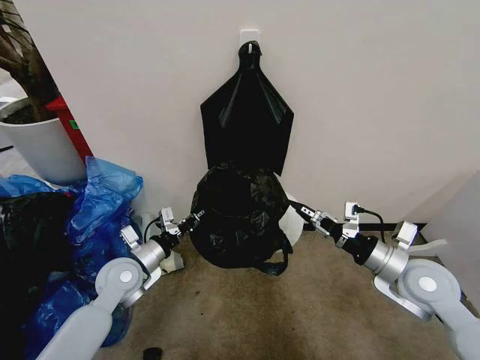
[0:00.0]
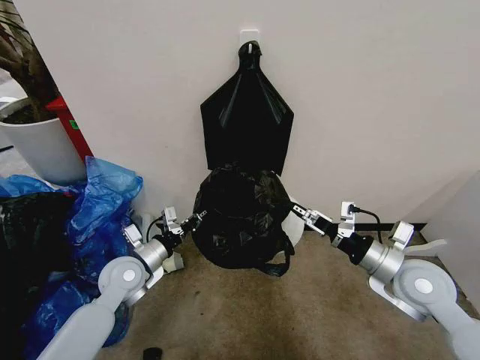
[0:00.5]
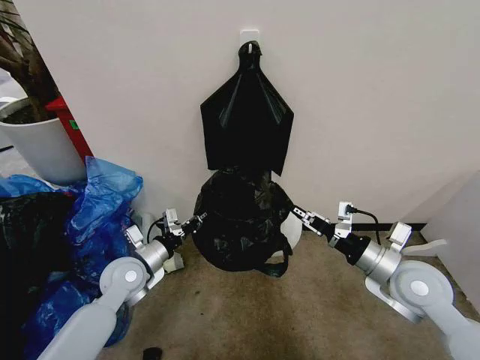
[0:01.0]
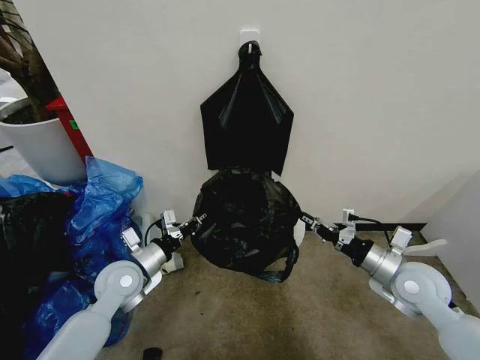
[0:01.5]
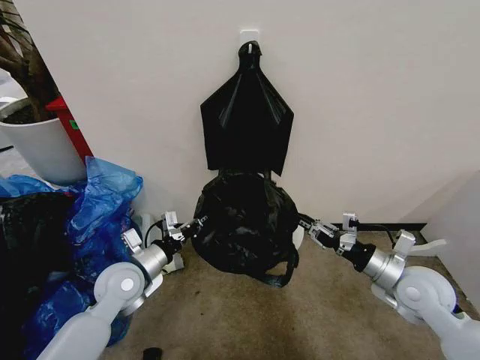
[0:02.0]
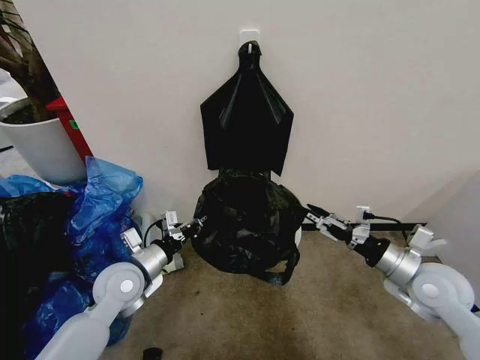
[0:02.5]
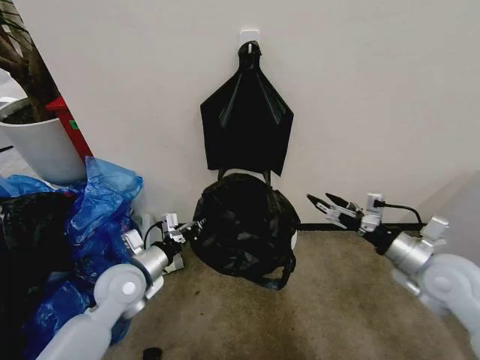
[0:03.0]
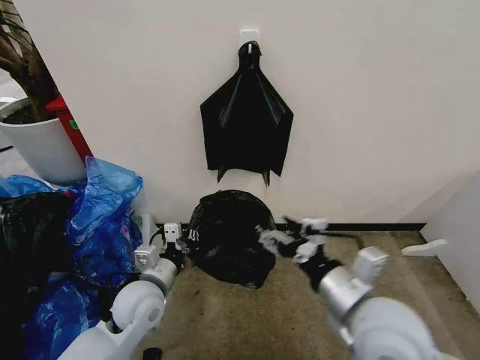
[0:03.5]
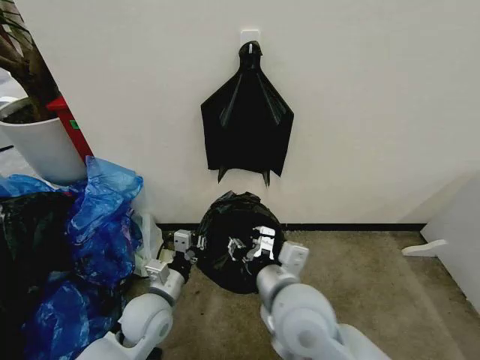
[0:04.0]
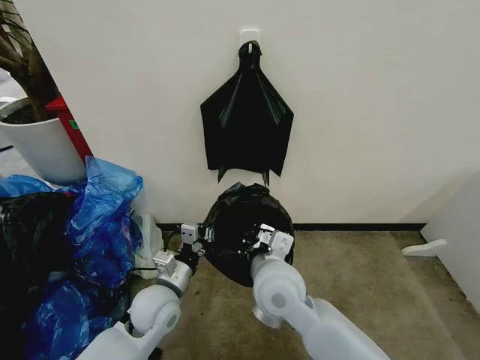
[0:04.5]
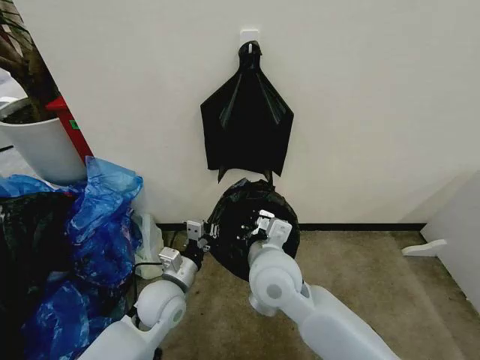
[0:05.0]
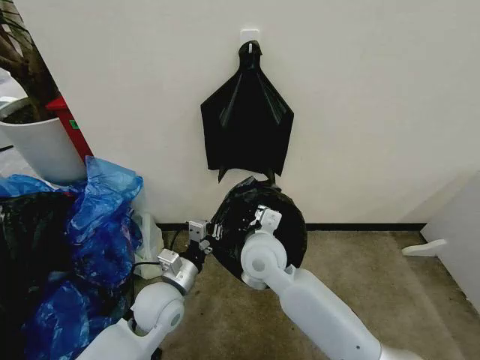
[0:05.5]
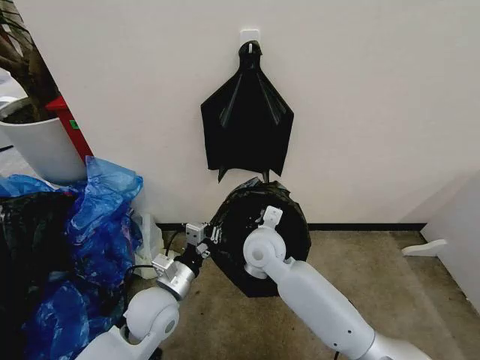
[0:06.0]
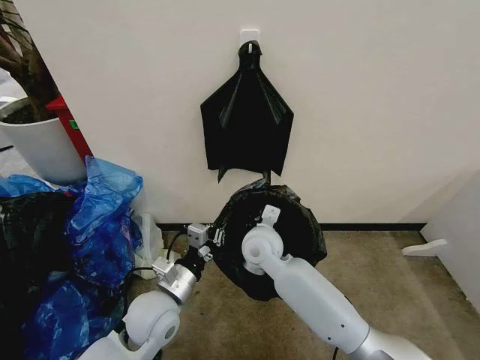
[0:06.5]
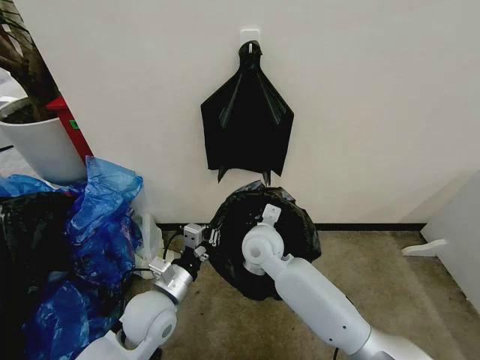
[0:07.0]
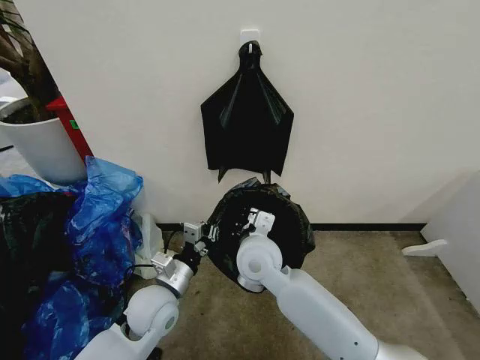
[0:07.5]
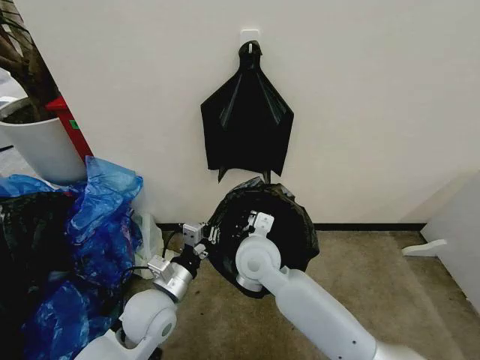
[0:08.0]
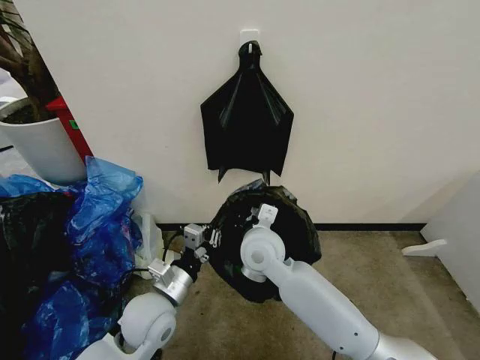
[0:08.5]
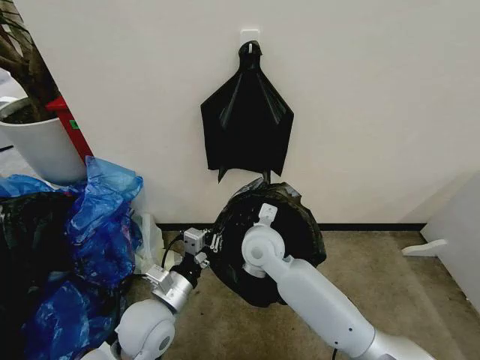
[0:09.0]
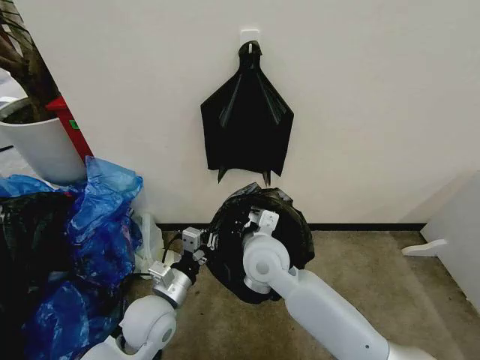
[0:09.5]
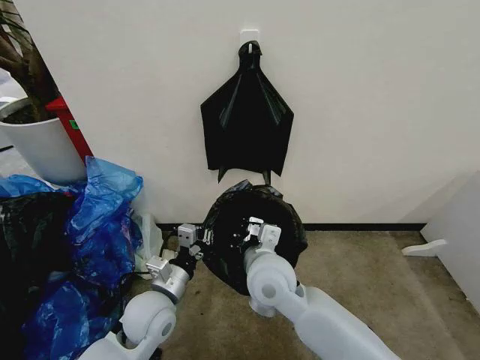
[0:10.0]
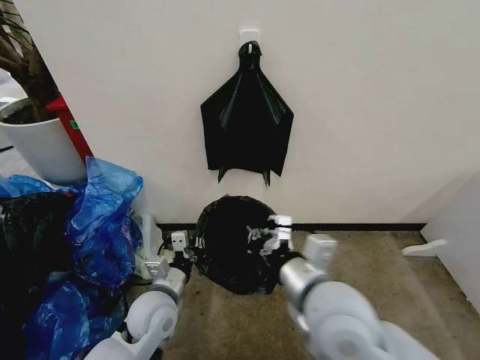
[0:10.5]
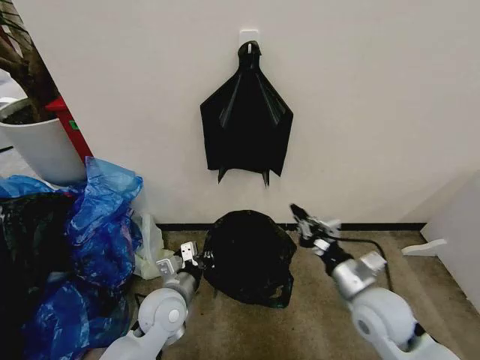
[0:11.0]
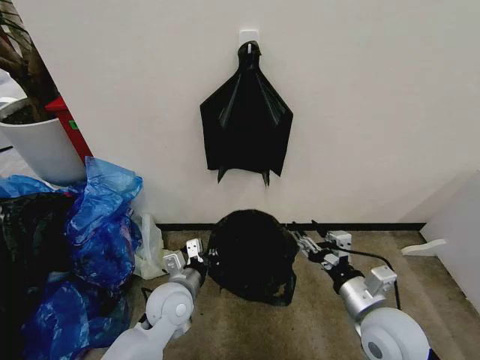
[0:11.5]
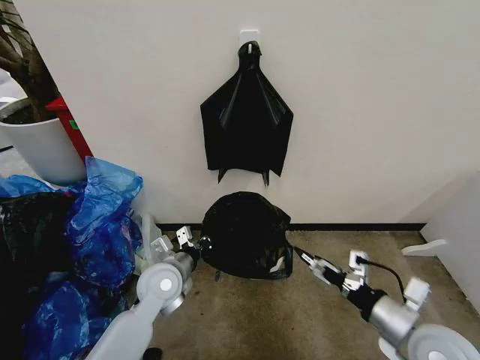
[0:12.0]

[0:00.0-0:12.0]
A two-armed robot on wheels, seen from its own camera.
Task of the whole recording: Place the garbage bag over the trash bin.
0:00.0 to 0:02.0: The right gripper closes its fingers.
0:02.0 to 0:04.0: The right gripper travels to the left by about 25 cm, and opens, then closes once more, while the left gripper is displaced to the right and backward by some 10 cm.
0:04.0 to 0:06.0: The right gripper travels forward and downward by about 20 cm, and closes up.
0:06.0 to 0:08.0: The grippers move only a little.
0:08.0 to 0:10.0: The right gripper ends up roughly 5 cm from where it was.
0:10.0 to 0:12.0: The left gripper moves forward, roughly 5 cm. The right gripper is displaced to the right and backward by about 30 cm, and opens up.

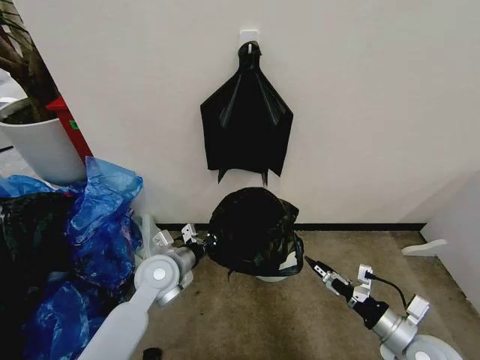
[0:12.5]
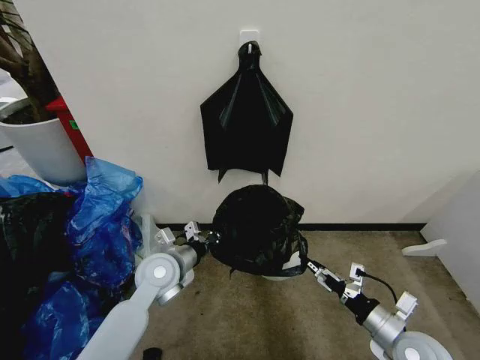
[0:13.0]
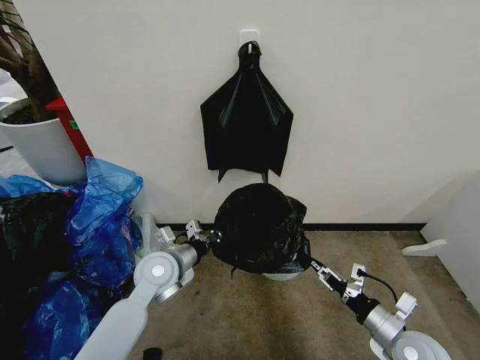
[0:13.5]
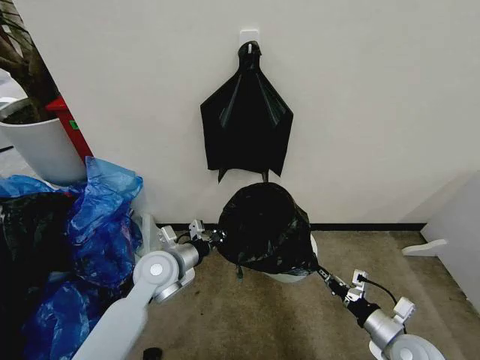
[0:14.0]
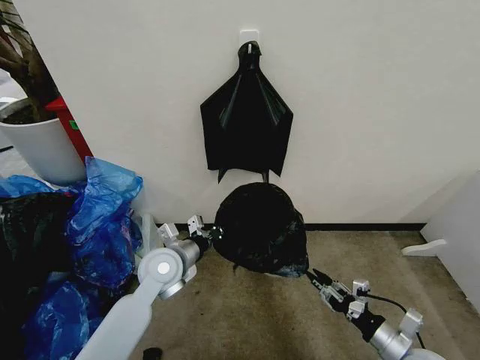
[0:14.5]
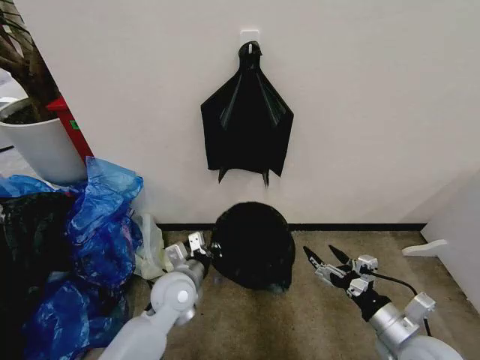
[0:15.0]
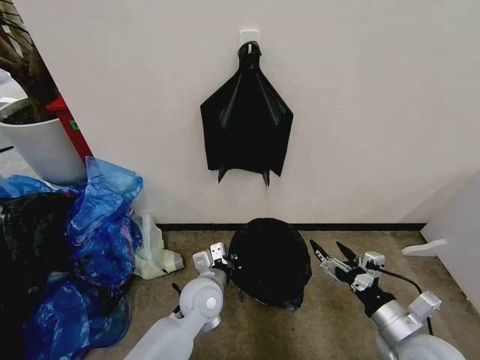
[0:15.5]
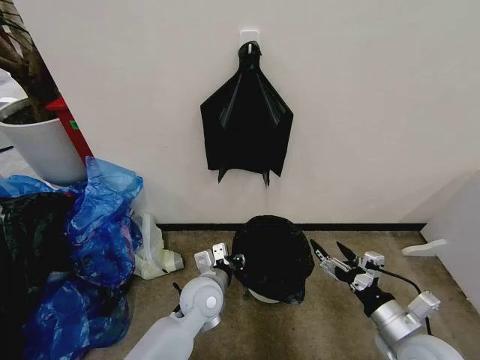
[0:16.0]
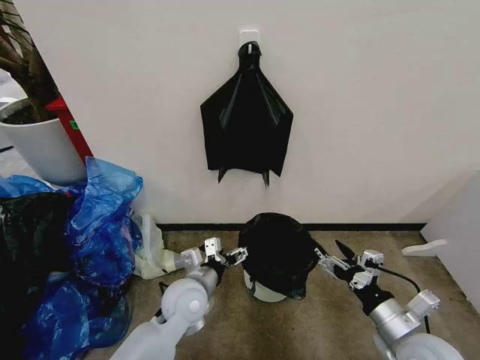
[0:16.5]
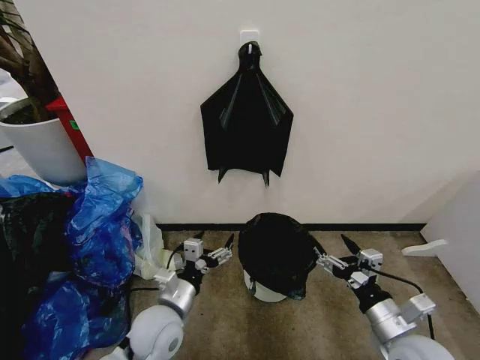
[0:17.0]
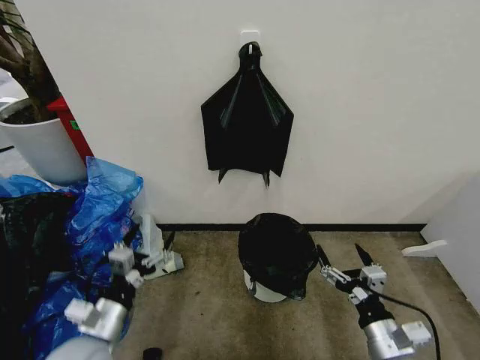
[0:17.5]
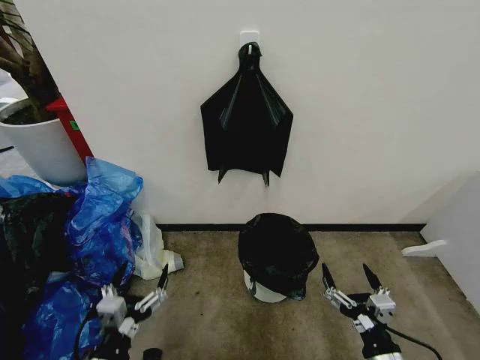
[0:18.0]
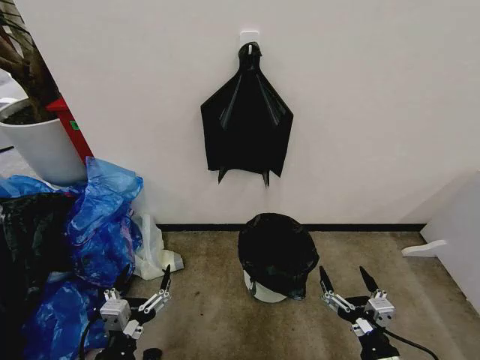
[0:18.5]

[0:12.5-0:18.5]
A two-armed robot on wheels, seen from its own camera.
Task of the whole recording: Place the garbage bag over the trash bin.
0:12.5 to 0:14.5: The right gripper closes up.
0:14.5 to 0:16.5: The left gripper travels to the right by some 5 cm, and opens up. The right gripper goes approximately 10 cm upward, and opens.
0:16.5 to 0:18.5: The right gripper shifts about 10 cm backward and downward. Meanwhile the left gripper is displaced backward and to the left by some 25 cm.

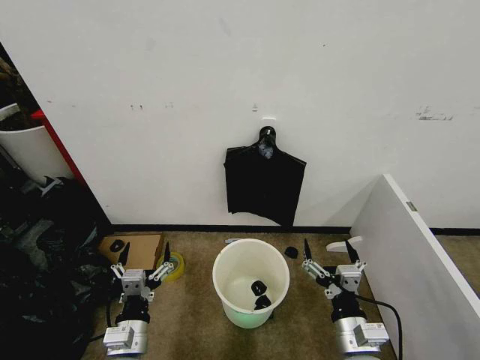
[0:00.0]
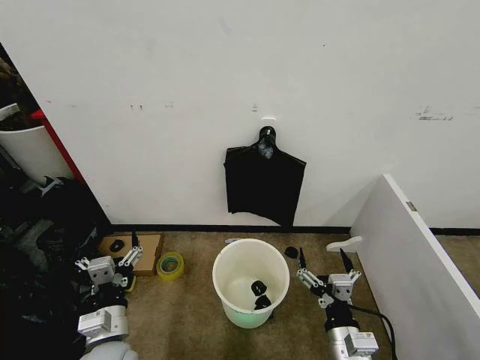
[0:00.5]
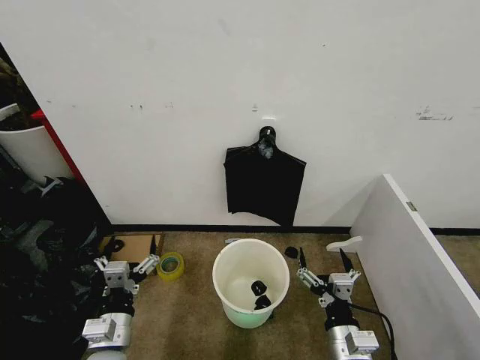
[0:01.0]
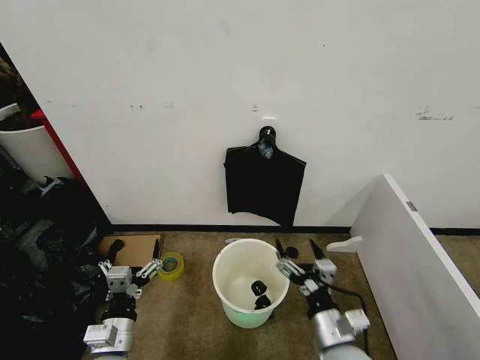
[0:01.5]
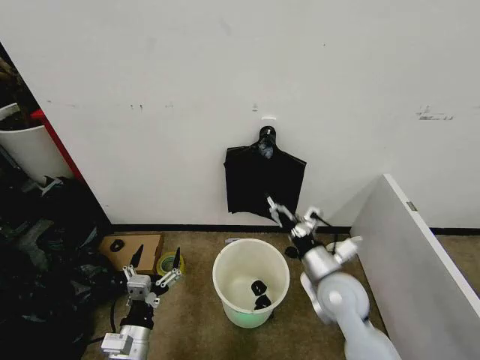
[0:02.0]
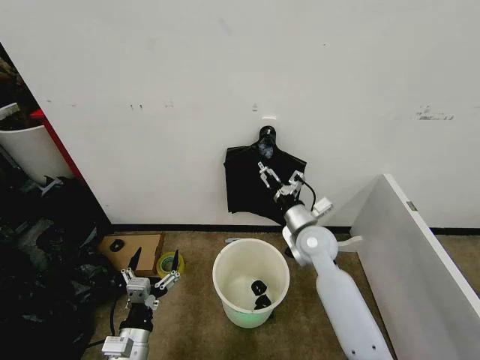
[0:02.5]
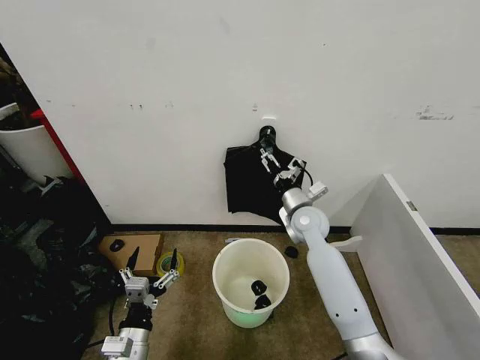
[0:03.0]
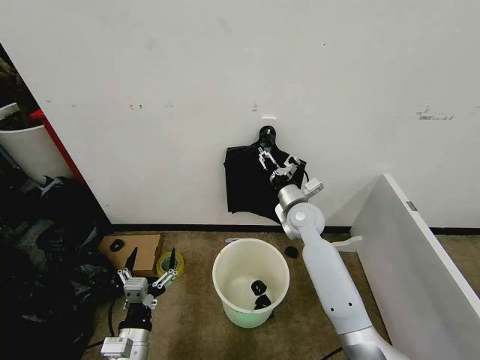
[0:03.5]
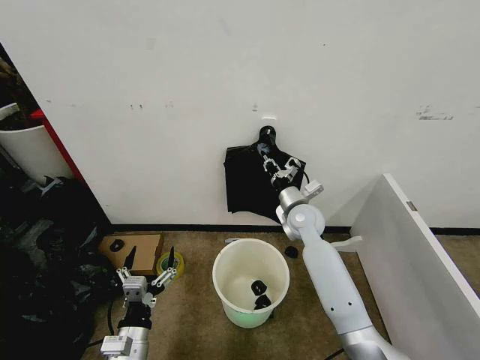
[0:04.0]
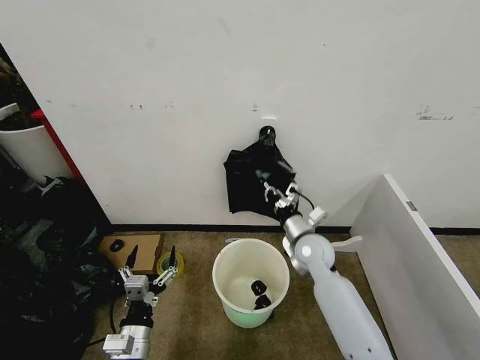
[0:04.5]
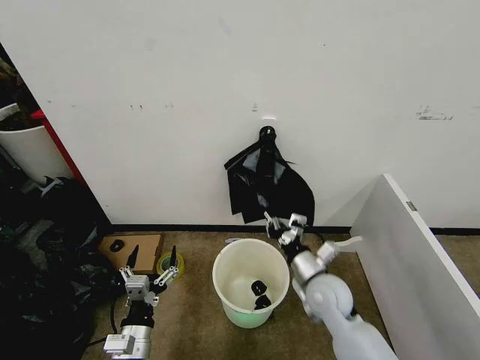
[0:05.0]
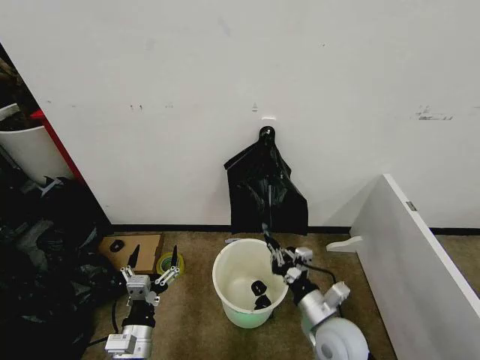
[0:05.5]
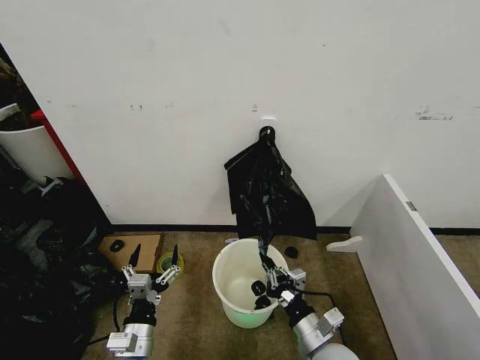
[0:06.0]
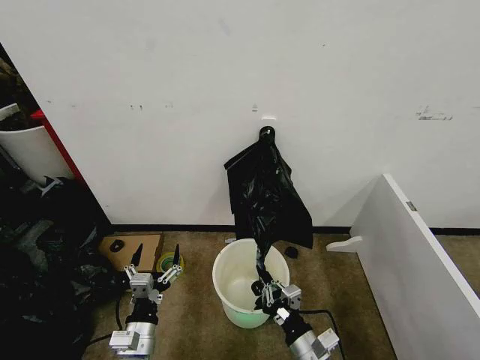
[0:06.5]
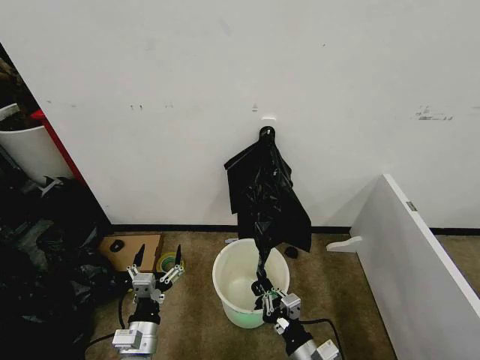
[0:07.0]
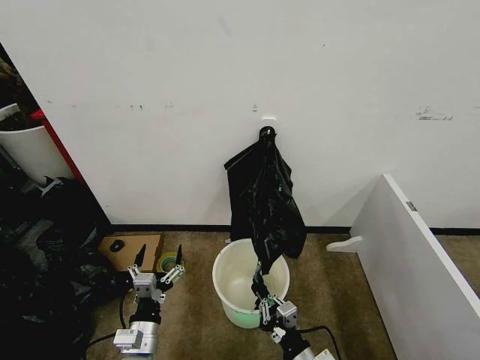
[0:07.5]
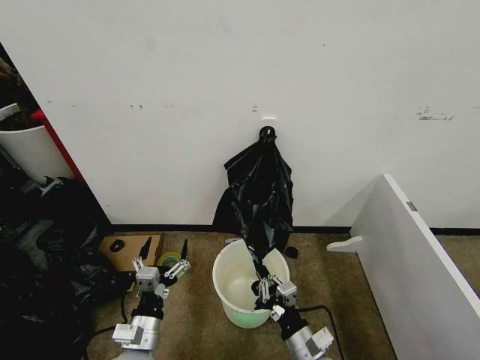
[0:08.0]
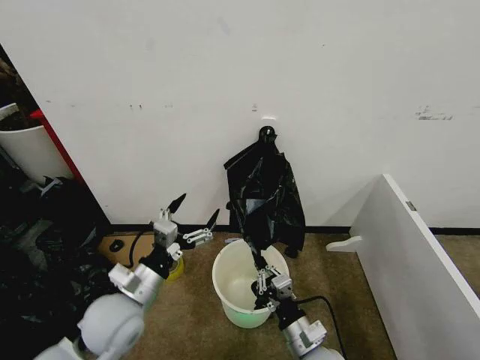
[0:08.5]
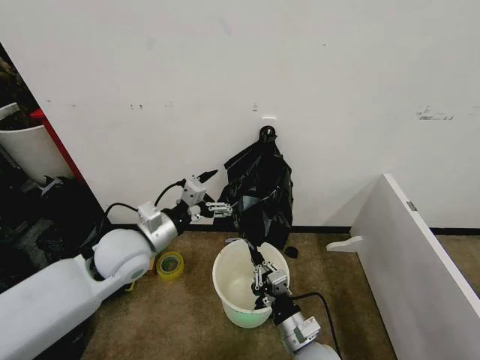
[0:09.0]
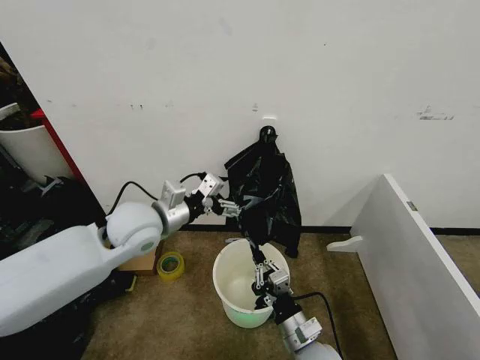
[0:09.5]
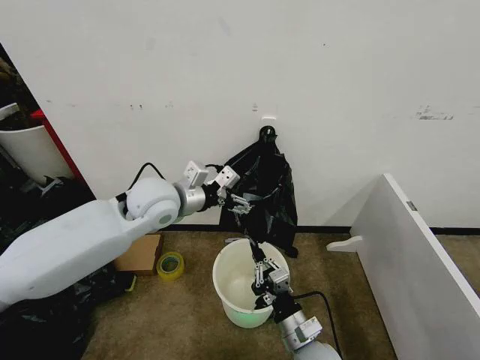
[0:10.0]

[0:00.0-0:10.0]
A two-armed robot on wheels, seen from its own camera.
Task of the whole recording: Place the garbage bag over the trash bin.
0:02.0 to 0:04.0: The right gripper travels forward by roughly 20 cm, and closes its fingers.
0:04.0 to 0:06.0: The right gripper moves backward, some 30 cm.
0:08.0 to 0:10.0: The left gripper is displaced forward and upward by roughly 35 cm.
